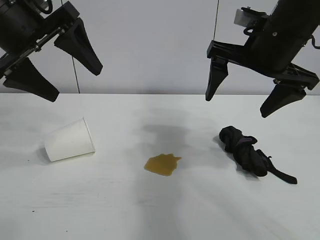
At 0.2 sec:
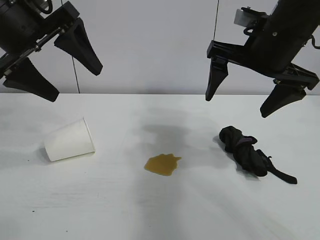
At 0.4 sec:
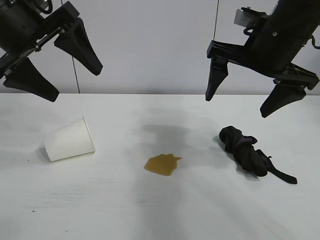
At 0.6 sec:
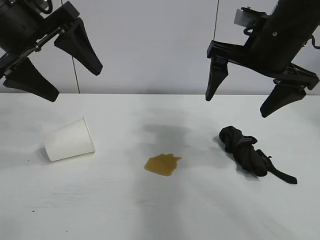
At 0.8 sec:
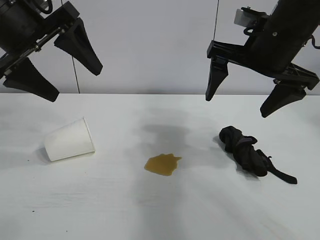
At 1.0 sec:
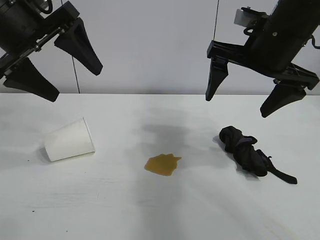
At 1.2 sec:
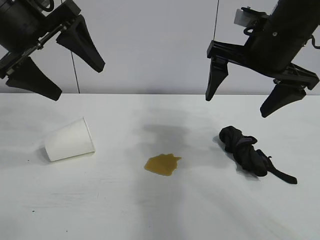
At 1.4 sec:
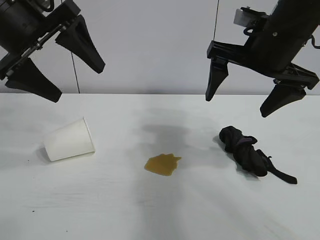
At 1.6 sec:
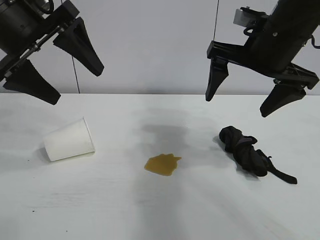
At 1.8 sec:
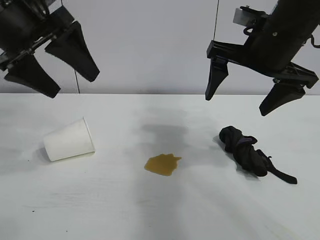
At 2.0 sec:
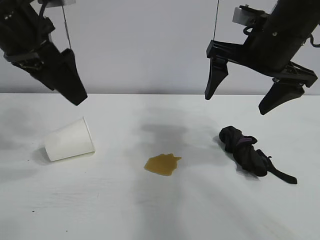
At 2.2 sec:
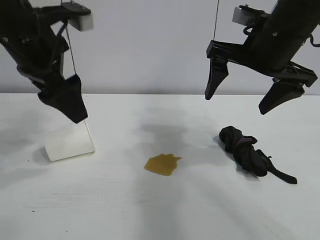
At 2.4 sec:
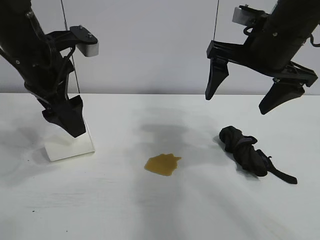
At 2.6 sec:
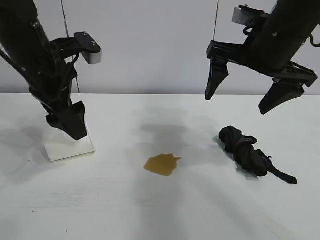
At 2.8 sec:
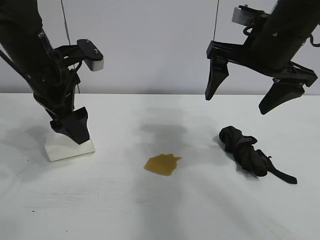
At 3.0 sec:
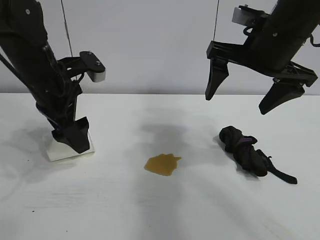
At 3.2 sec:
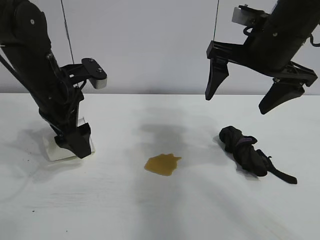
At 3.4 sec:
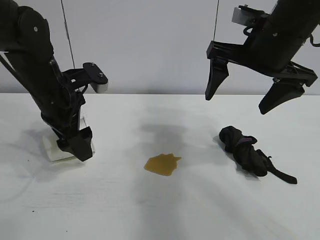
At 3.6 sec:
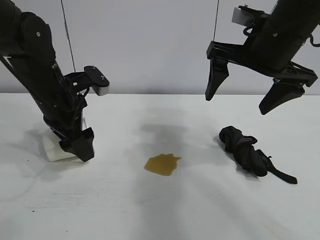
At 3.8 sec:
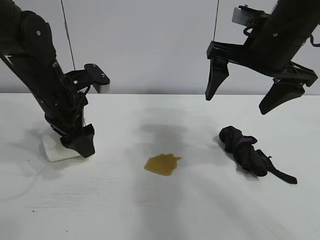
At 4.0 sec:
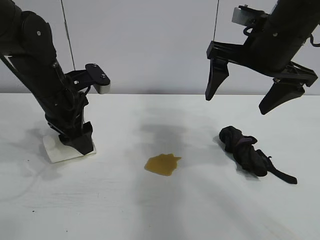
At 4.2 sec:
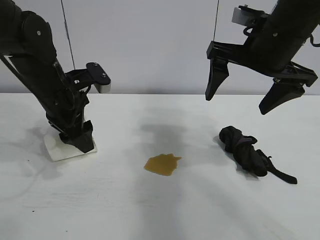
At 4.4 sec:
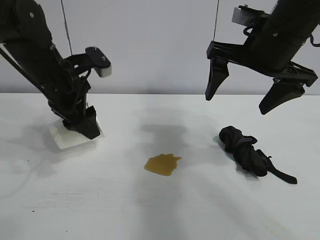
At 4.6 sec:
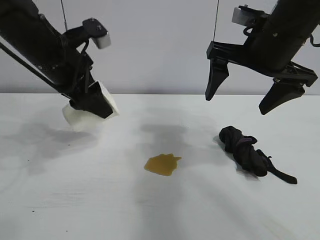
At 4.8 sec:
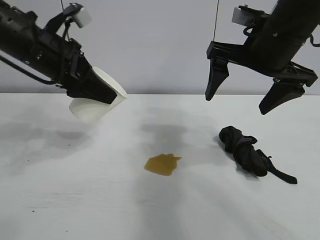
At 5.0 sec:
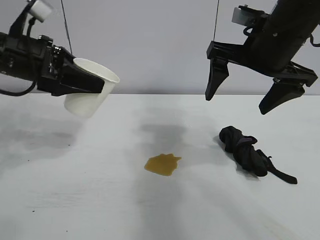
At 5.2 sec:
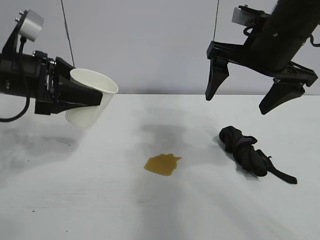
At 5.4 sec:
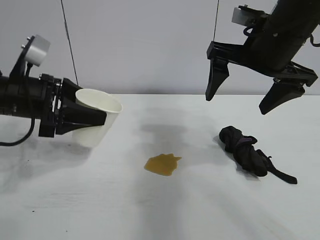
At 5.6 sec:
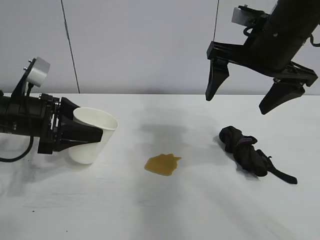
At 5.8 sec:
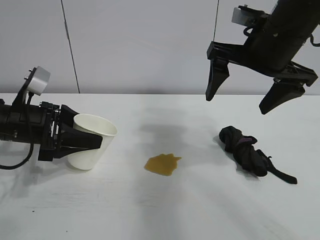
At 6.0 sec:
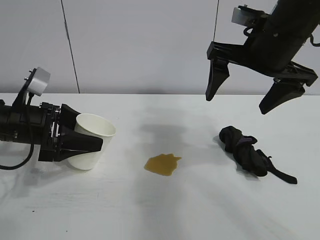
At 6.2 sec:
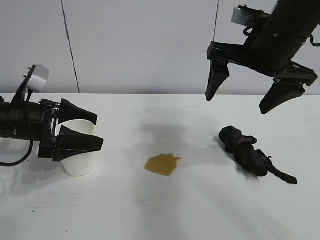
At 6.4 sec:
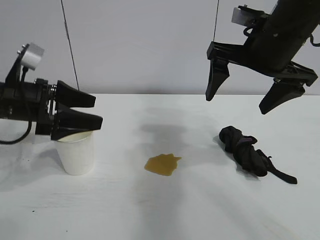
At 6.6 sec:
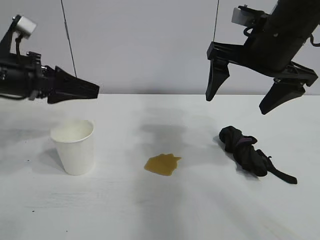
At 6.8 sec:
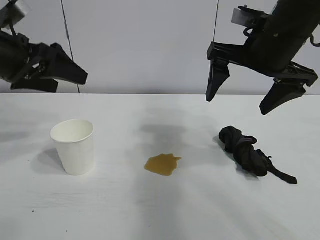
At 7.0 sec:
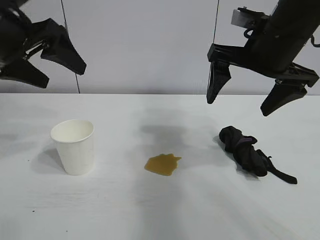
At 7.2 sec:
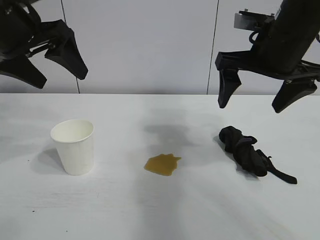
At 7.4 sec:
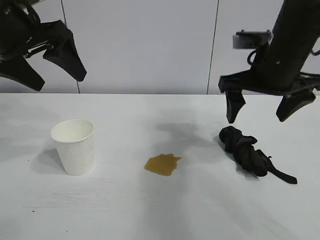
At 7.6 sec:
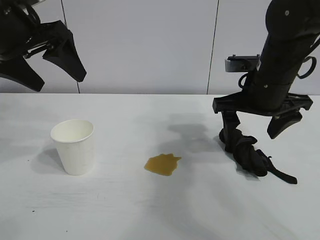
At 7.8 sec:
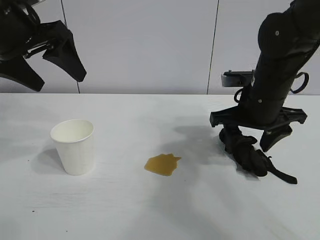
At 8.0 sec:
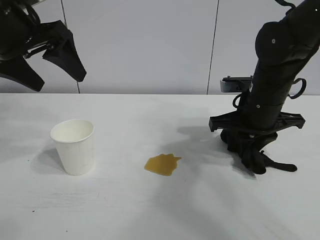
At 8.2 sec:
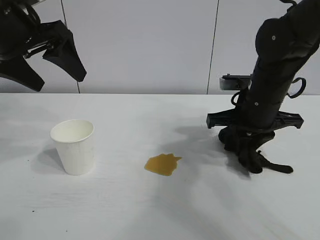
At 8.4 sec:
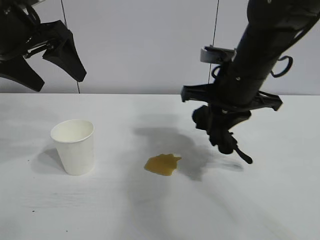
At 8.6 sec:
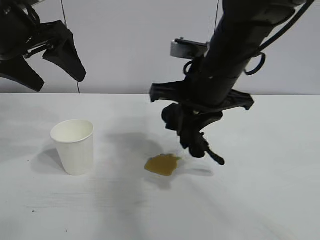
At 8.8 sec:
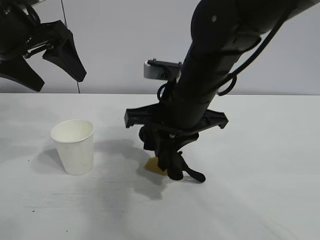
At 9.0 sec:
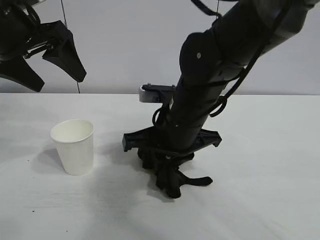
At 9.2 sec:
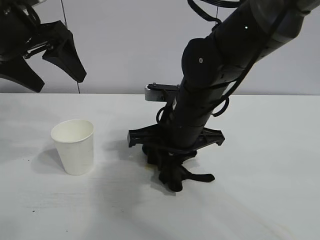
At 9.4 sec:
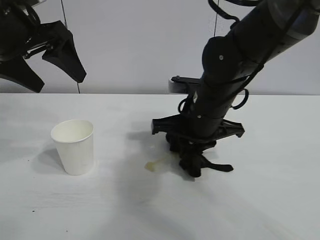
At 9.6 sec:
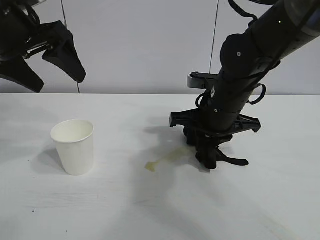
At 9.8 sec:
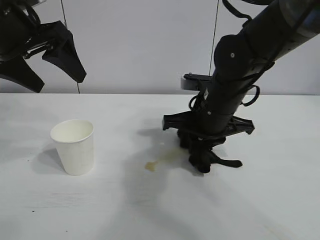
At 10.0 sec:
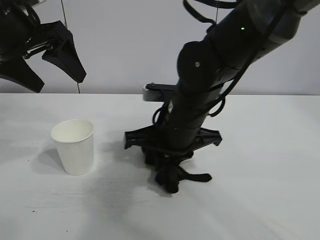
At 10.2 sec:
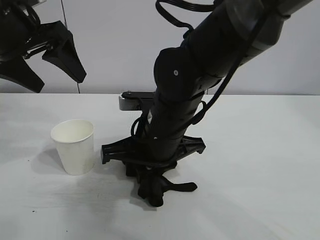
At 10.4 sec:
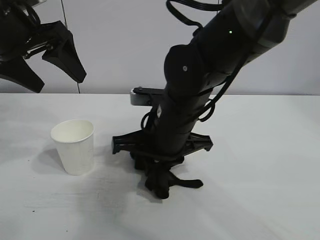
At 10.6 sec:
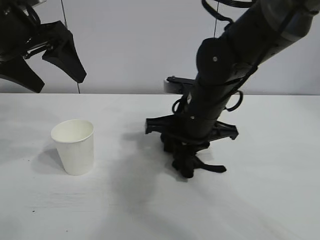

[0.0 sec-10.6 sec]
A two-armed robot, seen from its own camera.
Task of the whole recording: the left gripper pick up the fallen cup and place it upright, the right gripper grasp the black rag and wipe the stain on the table, the right gripper put the black rag back in its original position.
Step, 1.6 sec to 4.0 sec: Grasp the paper cup with left gripper.
Step, 4.2 sec to 6.0 sec: Stand the paper cup upright with left gripper.
Step, 6.4 sec to 7.8 sec: Grasp the rag with right gripper.
